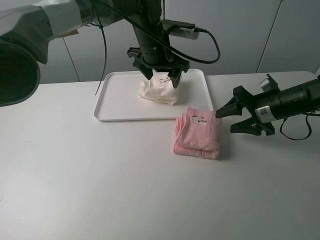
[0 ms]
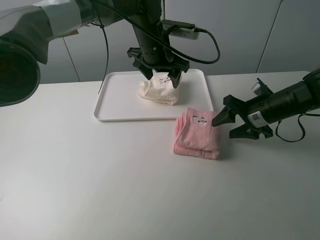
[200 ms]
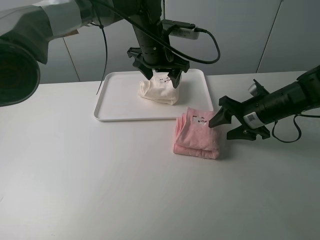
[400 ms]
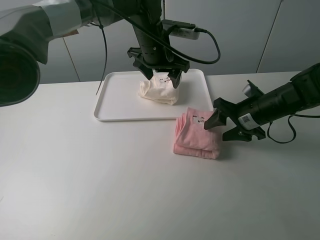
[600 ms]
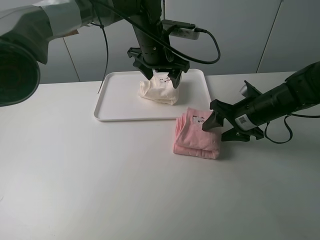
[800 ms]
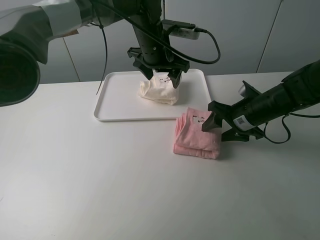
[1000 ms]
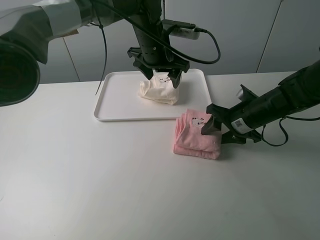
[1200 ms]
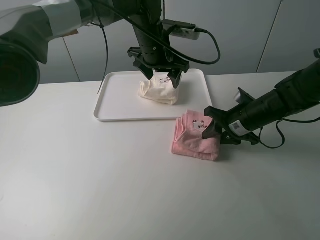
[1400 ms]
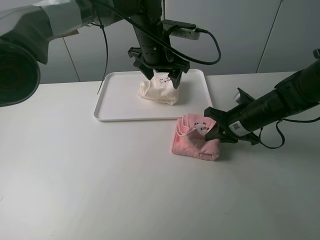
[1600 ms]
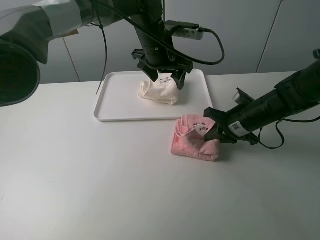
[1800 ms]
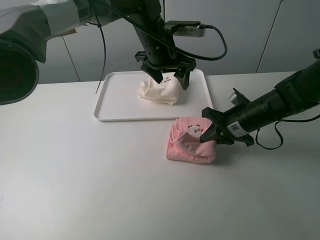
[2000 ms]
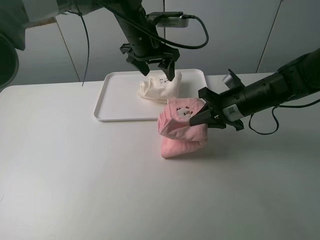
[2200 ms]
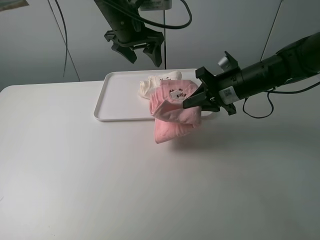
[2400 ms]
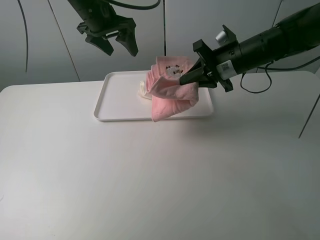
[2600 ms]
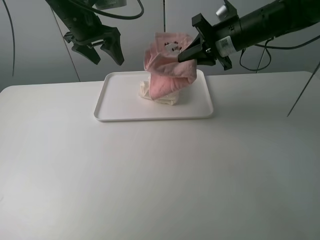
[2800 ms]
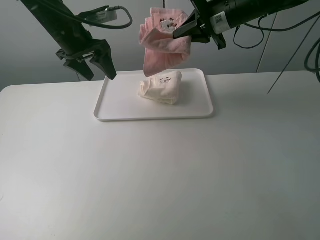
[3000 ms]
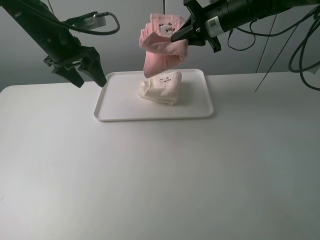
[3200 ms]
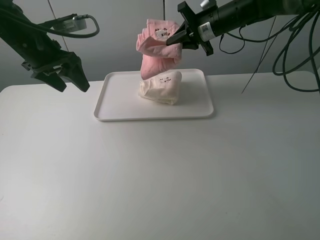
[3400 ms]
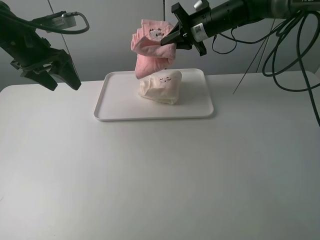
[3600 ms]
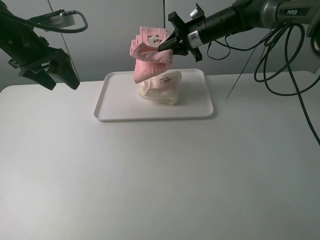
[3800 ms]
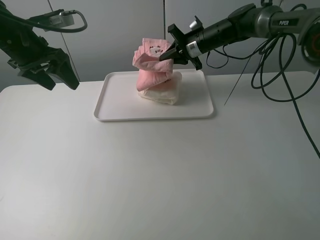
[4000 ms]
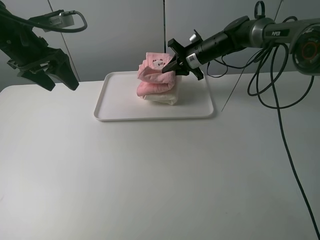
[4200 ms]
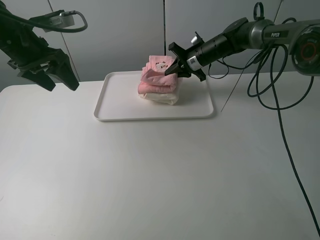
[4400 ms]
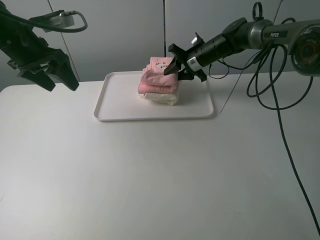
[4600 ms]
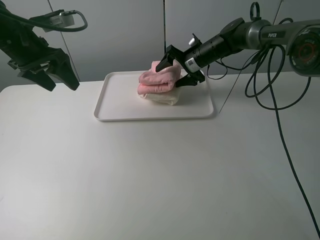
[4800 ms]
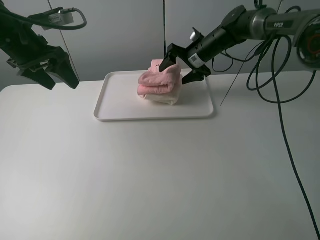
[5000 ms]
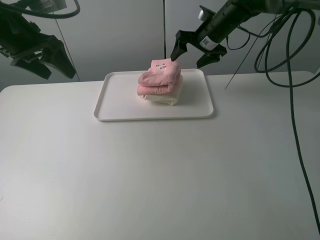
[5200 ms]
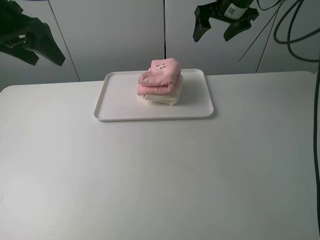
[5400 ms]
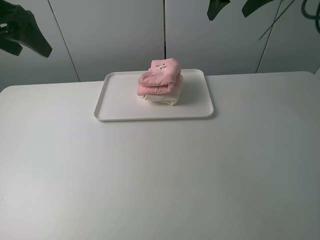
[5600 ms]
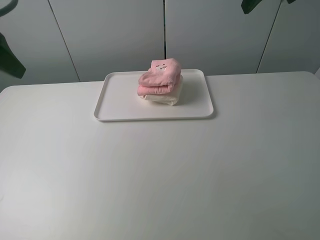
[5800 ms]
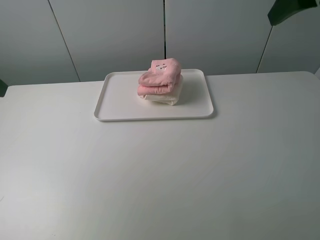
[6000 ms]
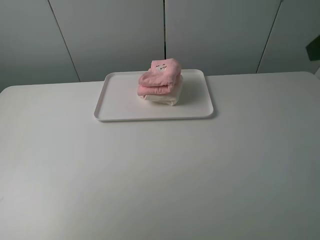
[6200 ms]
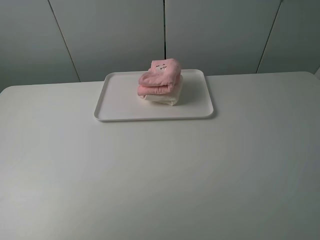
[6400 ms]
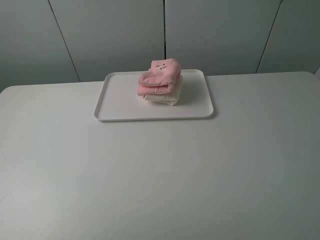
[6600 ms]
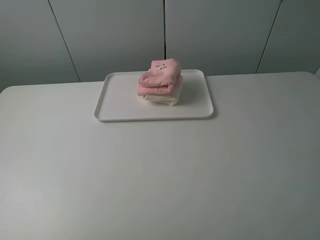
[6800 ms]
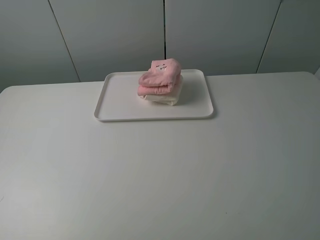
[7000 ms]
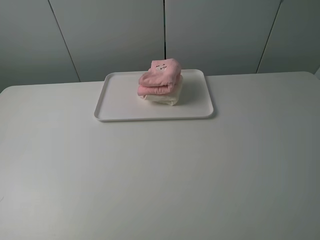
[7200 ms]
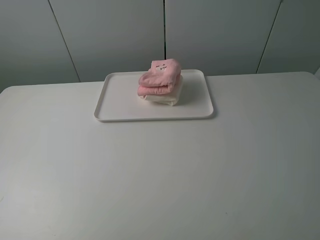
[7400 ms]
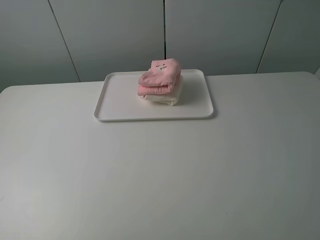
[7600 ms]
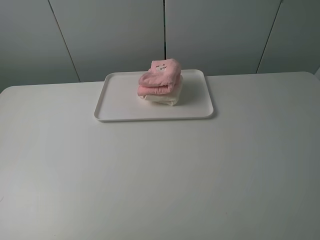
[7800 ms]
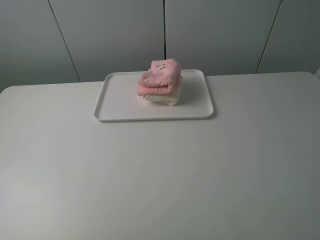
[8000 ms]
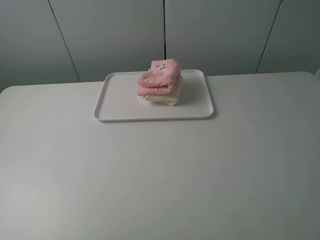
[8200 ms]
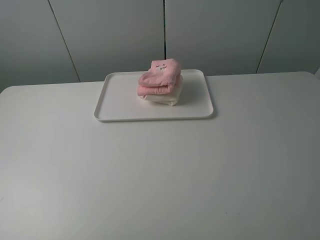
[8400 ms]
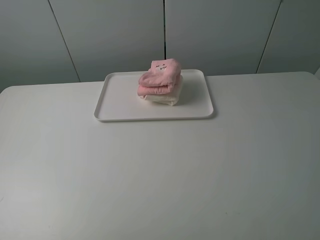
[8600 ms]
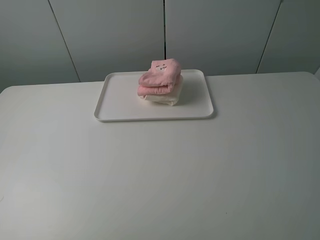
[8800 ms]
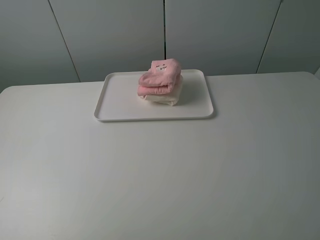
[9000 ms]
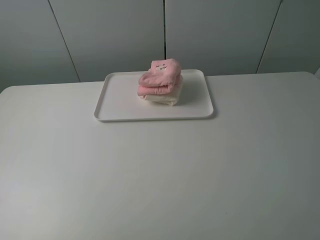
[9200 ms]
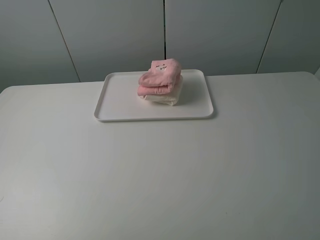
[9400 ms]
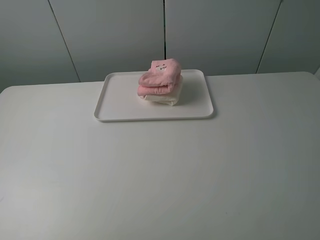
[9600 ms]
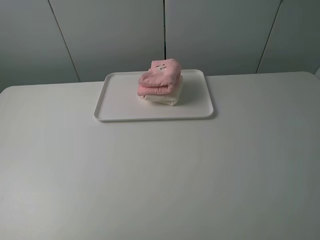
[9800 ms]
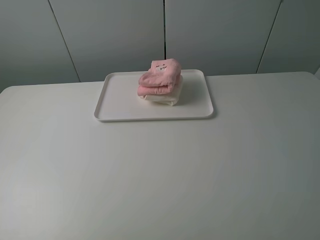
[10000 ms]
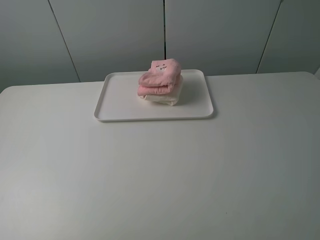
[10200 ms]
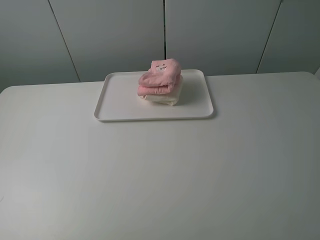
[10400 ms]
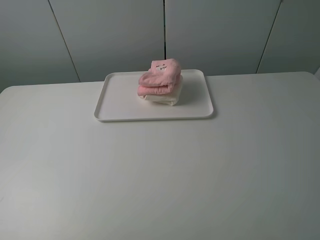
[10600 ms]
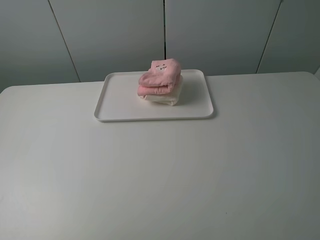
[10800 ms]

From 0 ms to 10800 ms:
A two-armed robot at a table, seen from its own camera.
Task of the whole recording: fold one of the towels by two grippers and place it on the tray,then fold another towel by two grippers and place it on the folded towel.
Step, from 0 ms to 1600 ms: Grasp the pink towel with the right gripper.
Step, from 1800 ms to 5200 ms: Place the pink towel on the white towel with the right gripper.
From 0 ms to 1600 ms: The right gripper goes about 5 cm to the left, and closes its fingers.
From 1600 ms to 3000 ms: The right gripper heads upward and forward, covering roughly 20 cm. Meanwhile the left gripper goes roughly 20 cm to the left.
From 3000 ms to 4600 ms: The right gripper heads downward and forward, covering about 15 cm, and opens, while the left gripper heads to the left and backward, covering some 10 cm.
From 4600 ms to 6200 ms: The right gripper goes about 40 cm backward and upward, and opens up, while the left gripper goes roughly 25 cm backward.
From 9200 ms to 10800 ms: Both grippers stay put.
